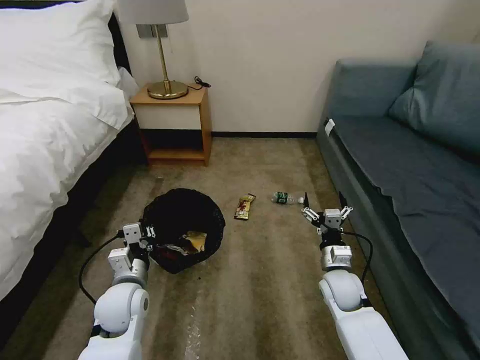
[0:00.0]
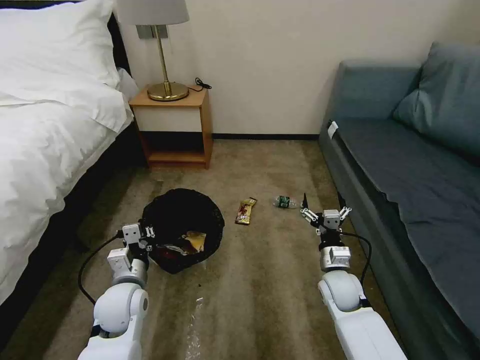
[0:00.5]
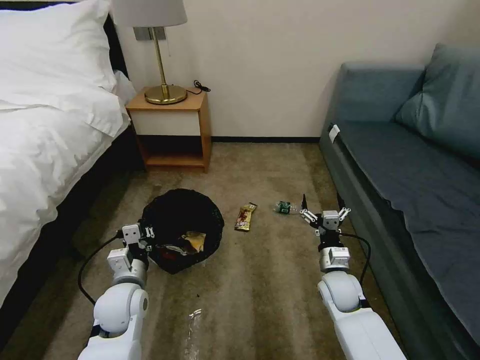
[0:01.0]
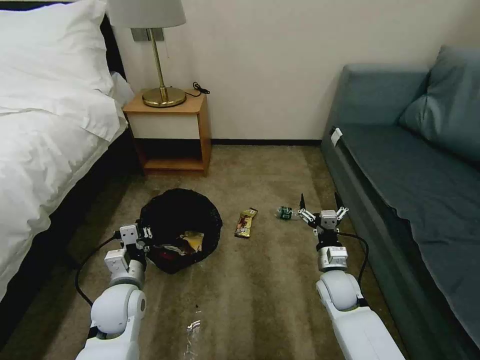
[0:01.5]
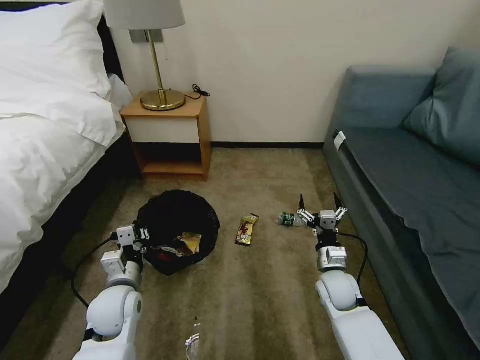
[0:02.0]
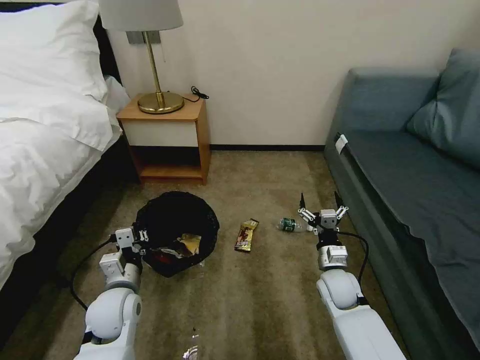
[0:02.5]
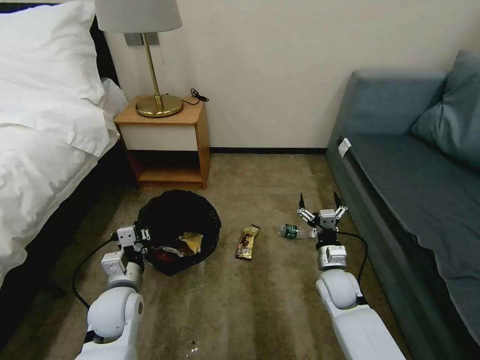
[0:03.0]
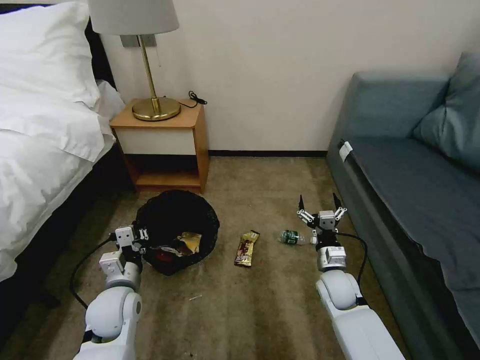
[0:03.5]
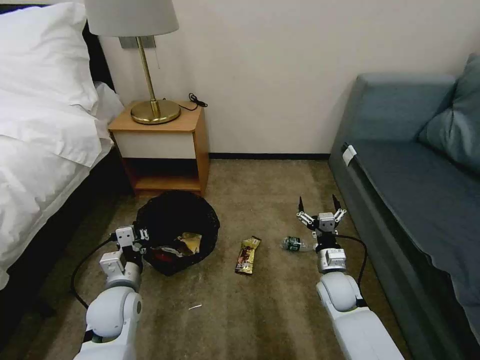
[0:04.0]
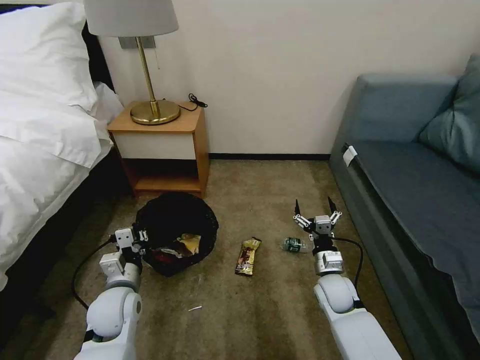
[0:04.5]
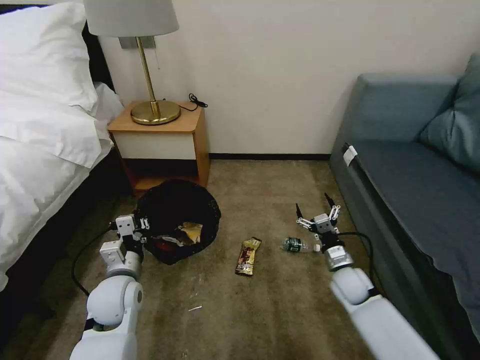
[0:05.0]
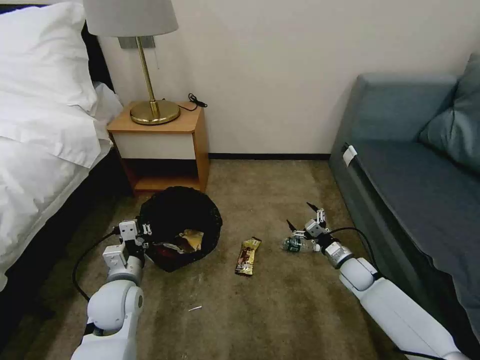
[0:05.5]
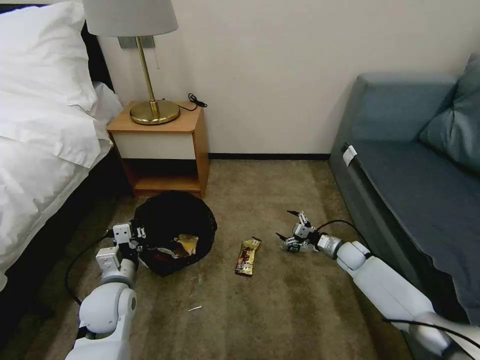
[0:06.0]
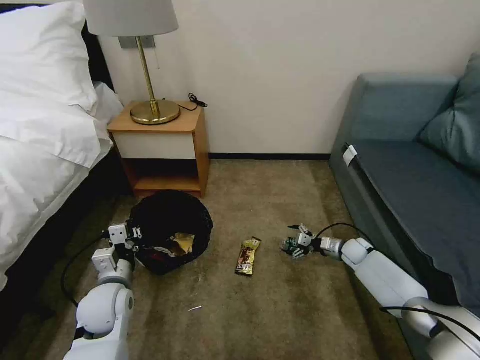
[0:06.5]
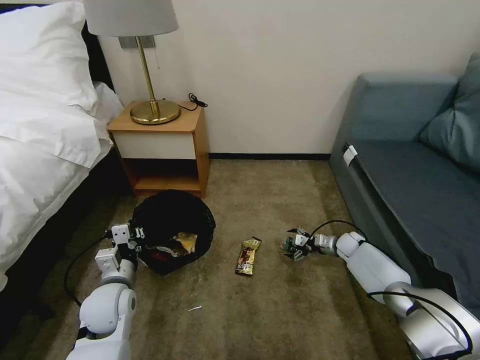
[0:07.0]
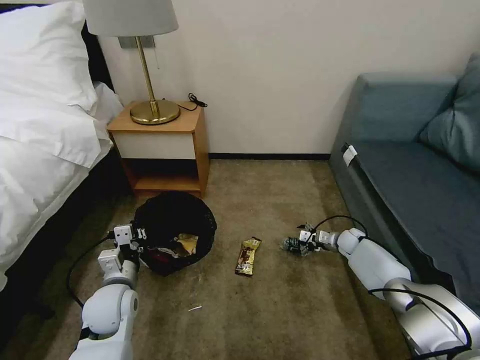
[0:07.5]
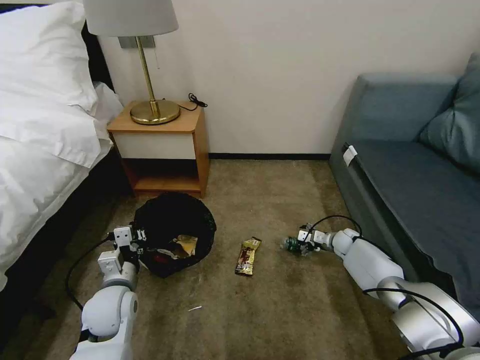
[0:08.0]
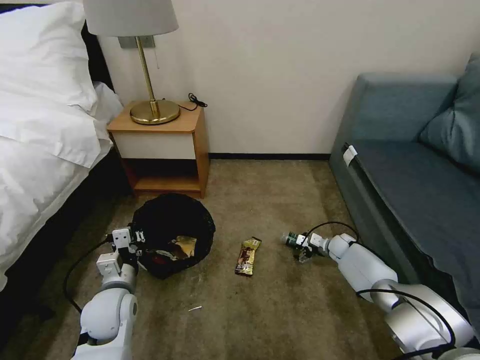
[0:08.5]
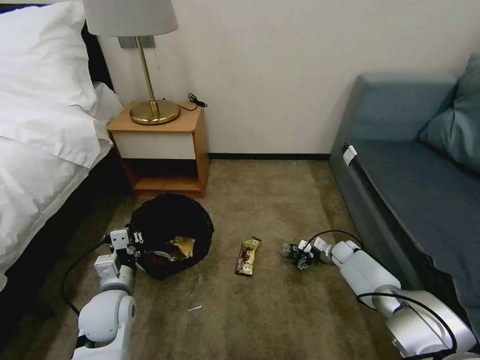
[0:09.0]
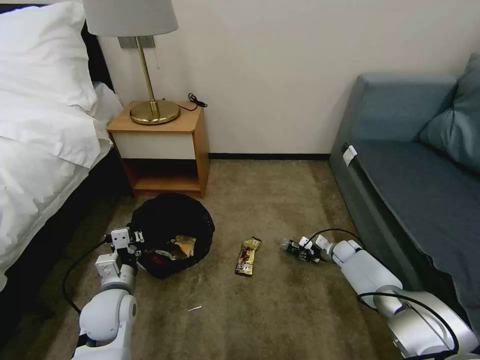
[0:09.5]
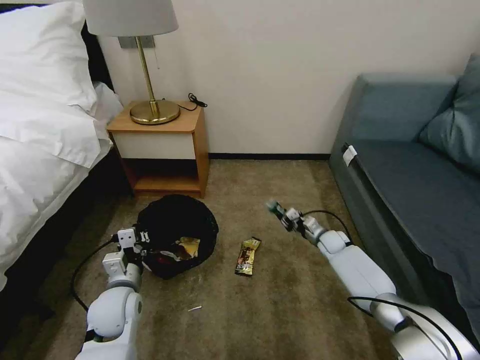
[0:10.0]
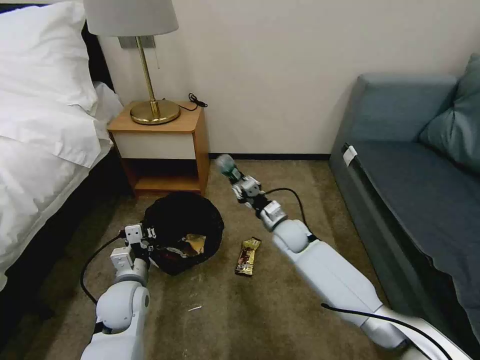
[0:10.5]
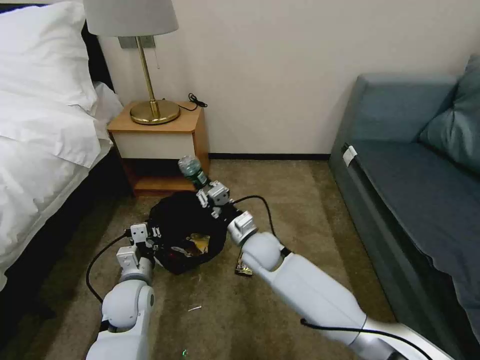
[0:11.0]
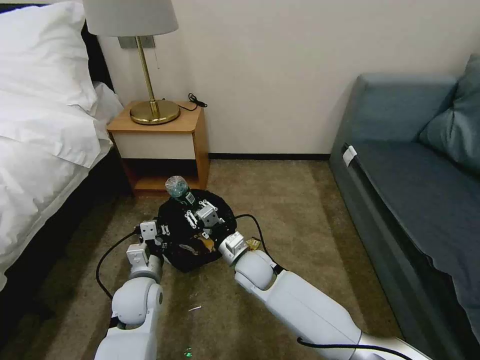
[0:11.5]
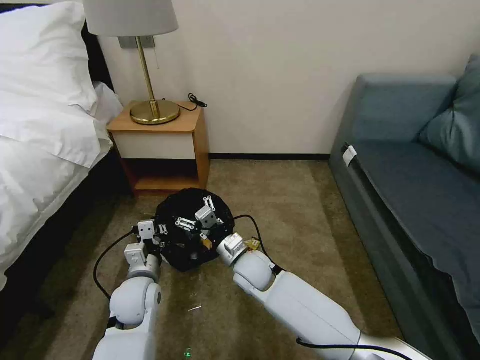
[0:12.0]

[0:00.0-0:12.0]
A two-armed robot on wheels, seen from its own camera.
Task of the whole recording: Pick up the trash bin, then pick up the garbage on the floor and place it into the trash bin.
0:00.0 to 0:02.0: The two grippers keep their place.
0:02.0 to 0:04.0: The two grippers keep their place.
0:04.0 to 0:06.0: The right gripper moves forward, to the right and downward, roughly 20 cm.
0:06.0 to 0:08.0: The right gripper goes roughly 5 cm forward.
0:08.0 to 0:10.0: The right gripper heads to the left, covering roughly 5 cm, and closes up.
0:10.0 to 0:12.0: The right gripper shifts some 30 cm to the left and backward, and opens its fingers.

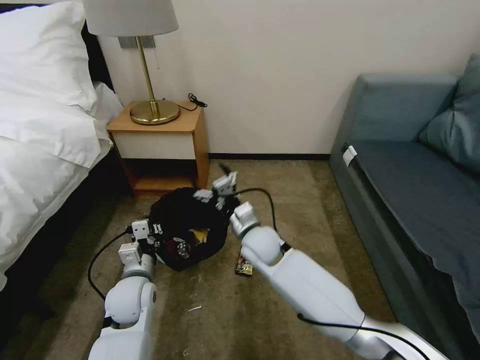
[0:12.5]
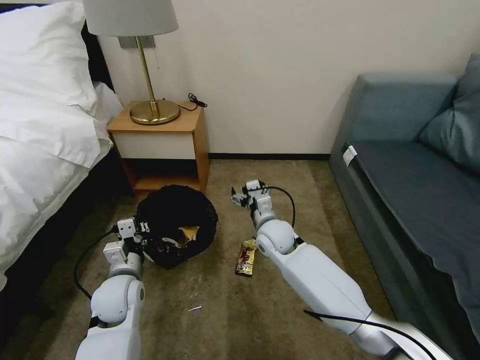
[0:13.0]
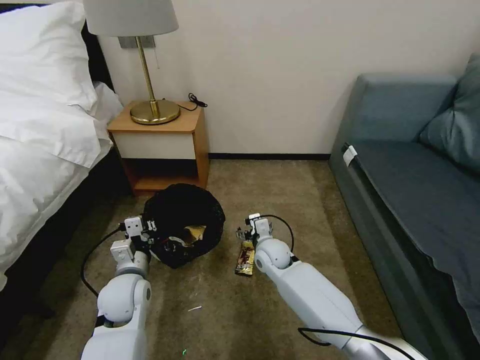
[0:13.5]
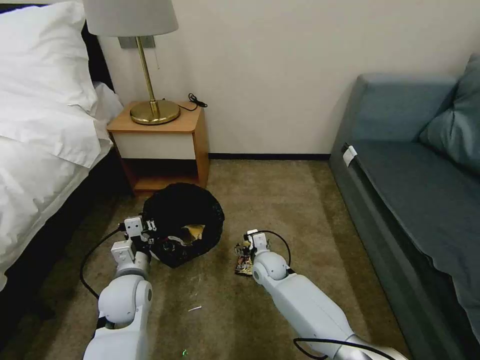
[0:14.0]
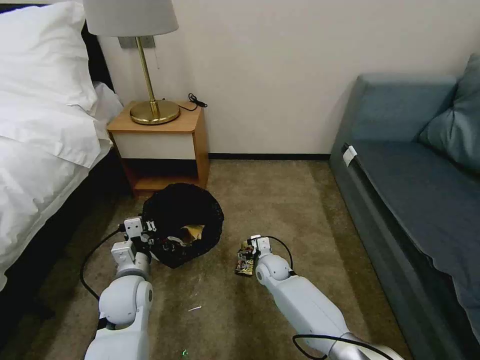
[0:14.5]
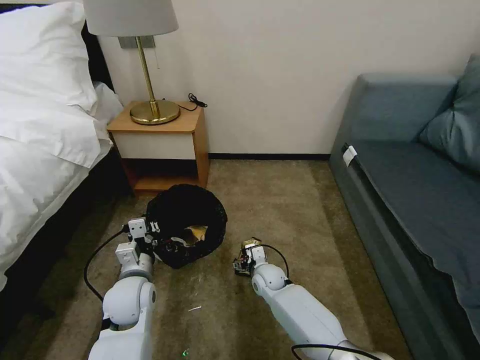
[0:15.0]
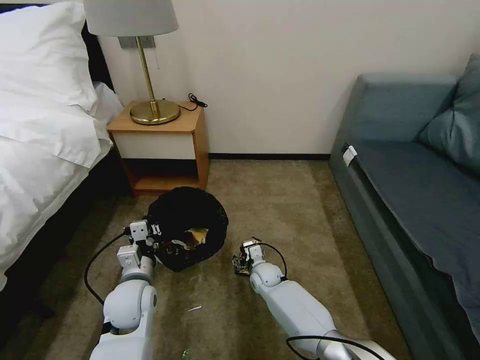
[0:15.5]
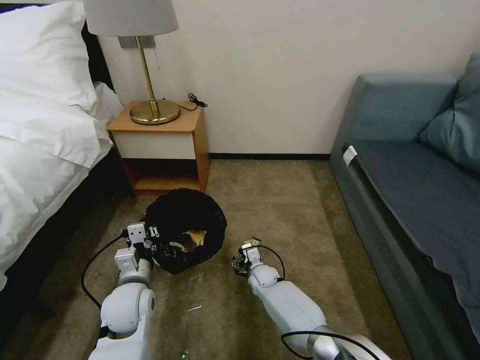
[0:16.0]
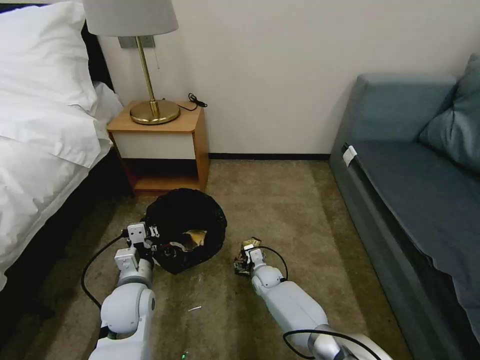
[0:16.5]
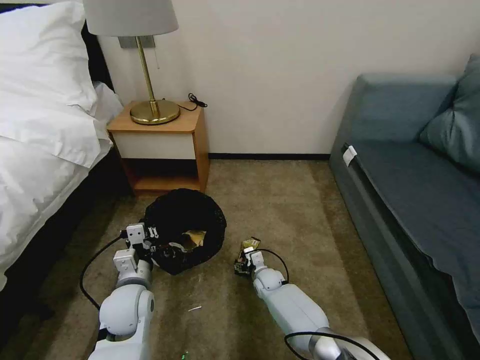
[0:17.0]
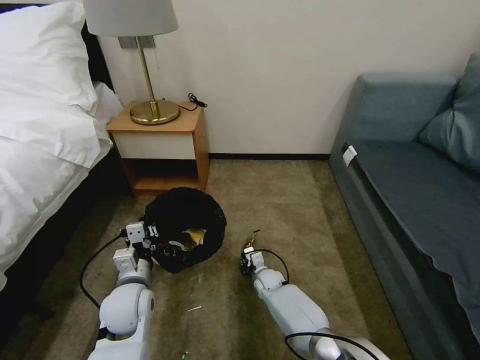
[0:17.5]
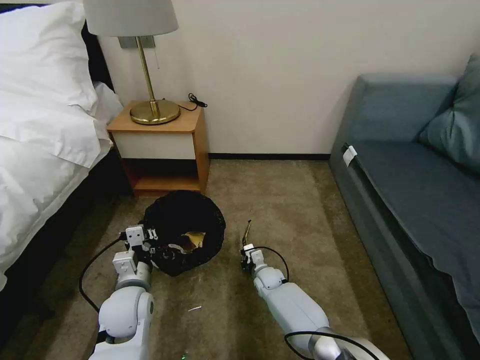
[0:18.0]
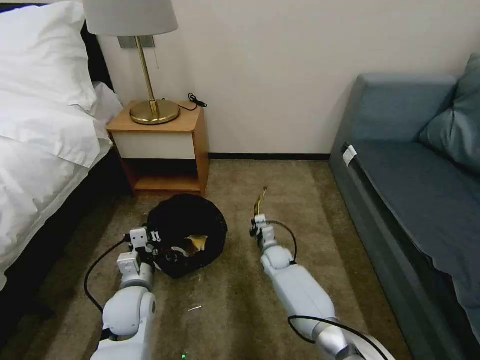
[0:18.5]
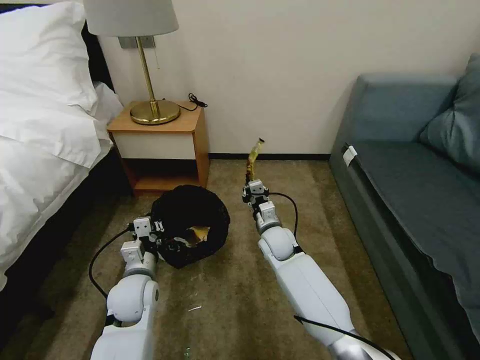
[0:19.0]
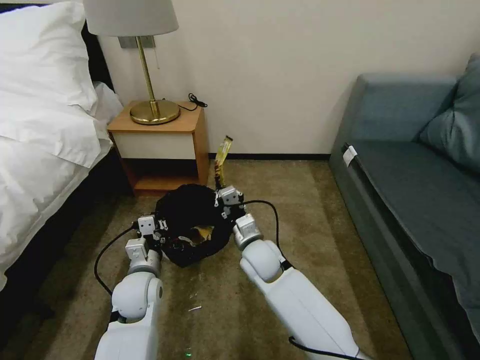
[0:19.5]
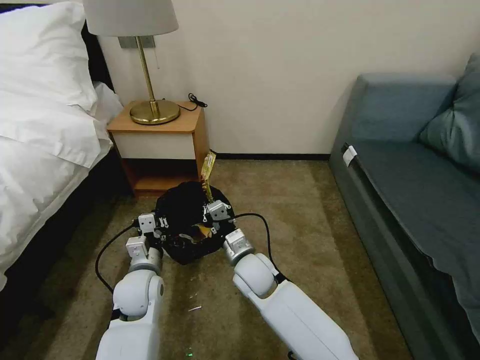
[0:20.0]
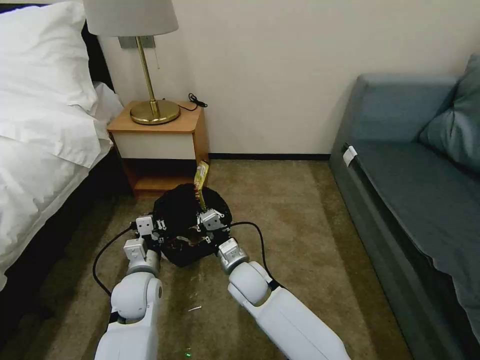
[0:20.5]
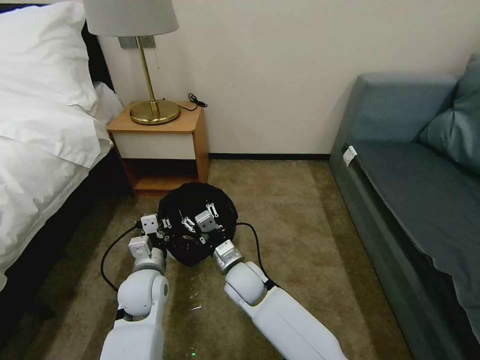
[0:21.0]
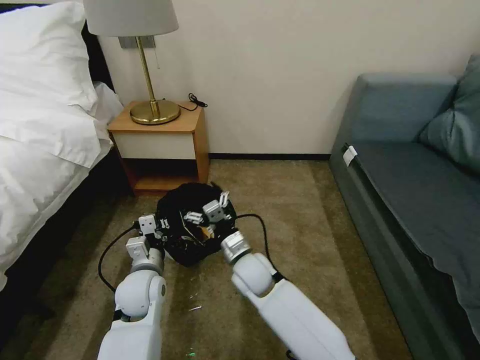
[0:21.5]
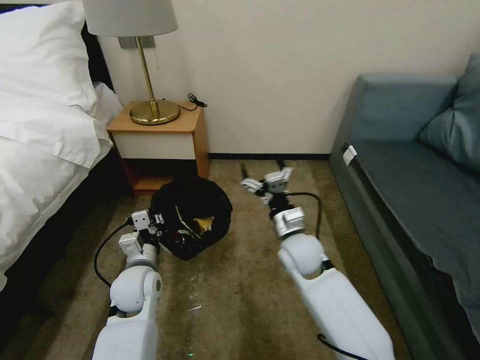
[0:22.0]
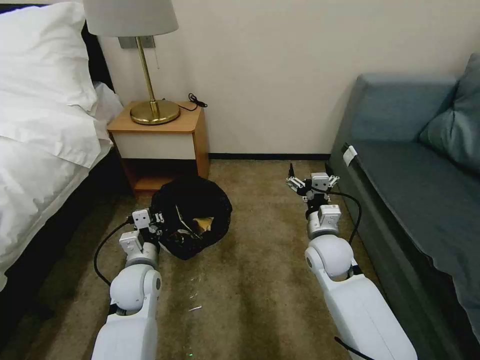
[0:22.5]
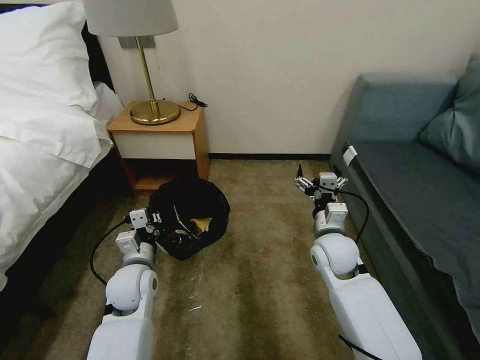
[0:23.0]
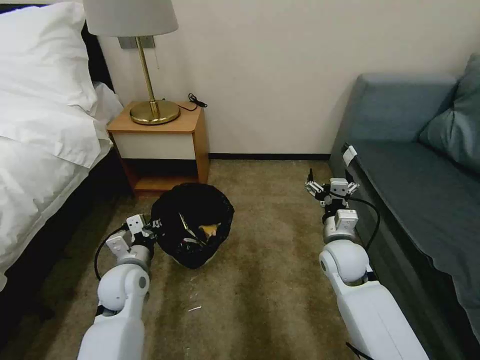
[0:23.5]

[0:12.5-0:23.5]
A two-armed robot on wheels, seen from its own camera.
Task of the whole recording: Pick up the trash bin, then pick up the garbage on the floor and place it into the trash bin.
0:12.5 to 0:14.5: The right gripper moves downward, approximately 15 cm.
0:14.5 to 0:16.0: The right gripper heads downward, covering roughly 5 cm.
0:16.0 to 0:18.0: The right gripper closes up.
0:18.0 to 0:20.0: The right gripper is displaced upward by approximately 20 cm.
0:20.0 to 0:21.5: The right gripper opens up.
0:21.5 to 0:23.5: The right gripper goes approximately 20 cm to the right.

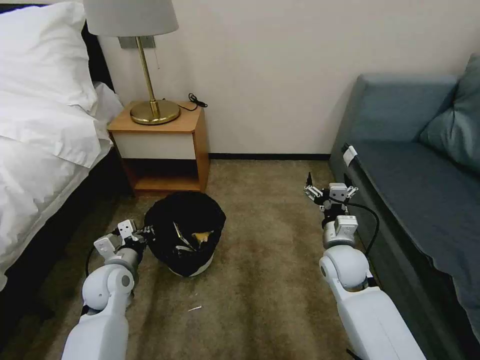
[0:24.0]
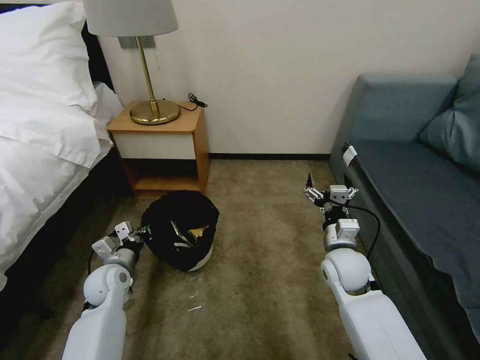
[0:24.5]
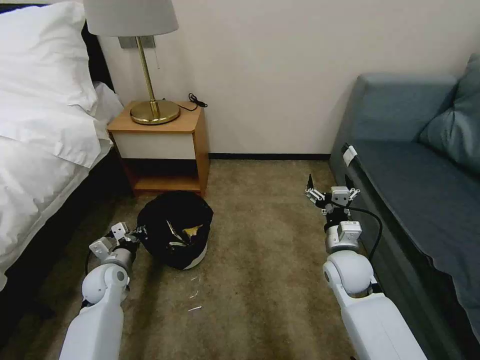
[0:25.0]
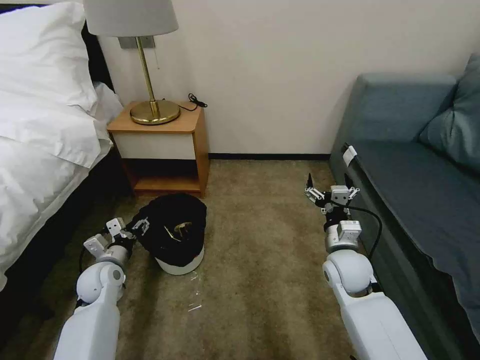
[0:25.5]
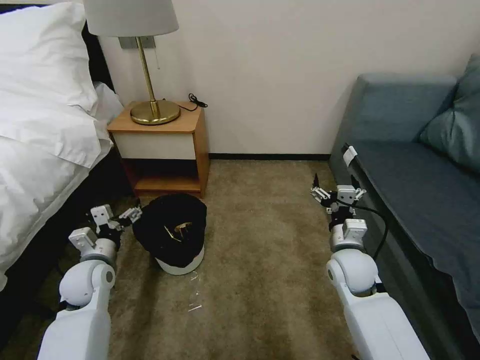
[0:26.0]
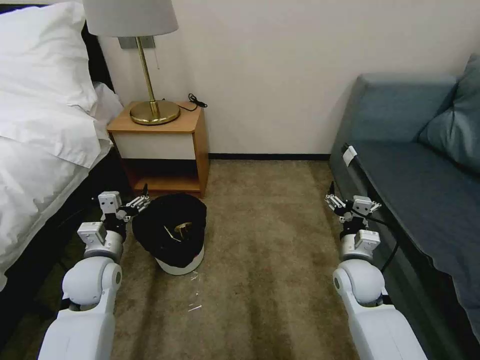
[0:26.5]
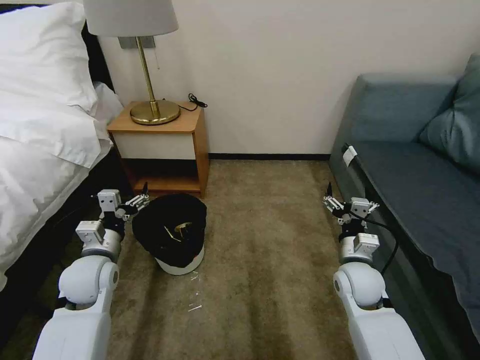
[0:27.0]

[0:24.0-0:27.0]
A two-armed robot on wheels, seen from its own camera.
Task of the whole recording: Pick up the trash bin, then pick up the garbage on the floor and place it into the trash bin.
0:24.0 to 0:25.5: The left gripper moves about 5 cm, and opens its fingers.
0:25.5 to 0:27.0: The left gripper shifts roughly 10 cm upward, and opens up.
